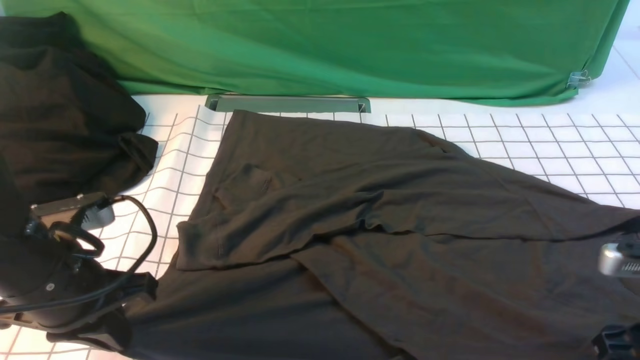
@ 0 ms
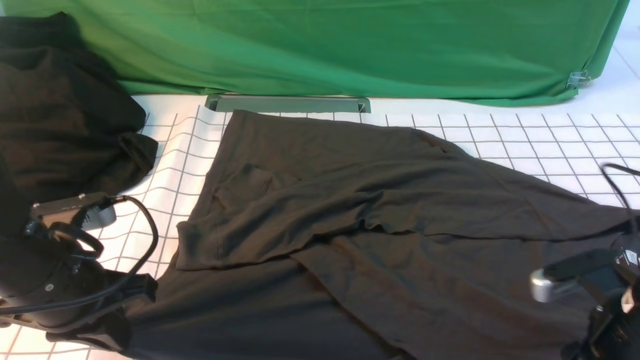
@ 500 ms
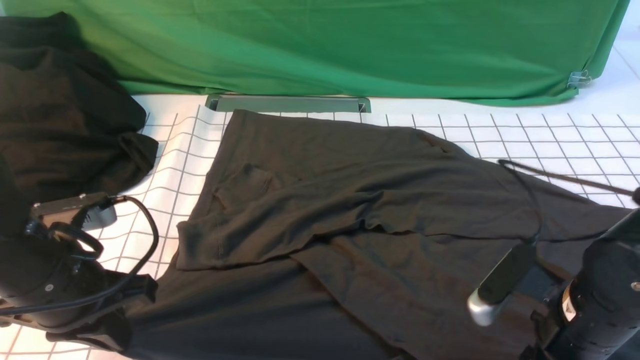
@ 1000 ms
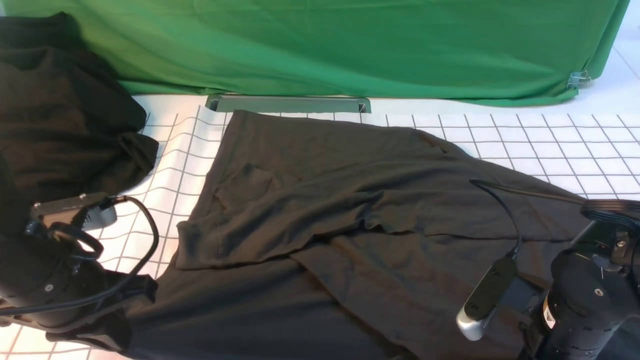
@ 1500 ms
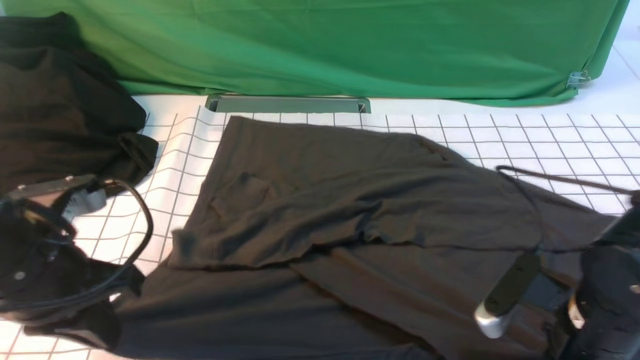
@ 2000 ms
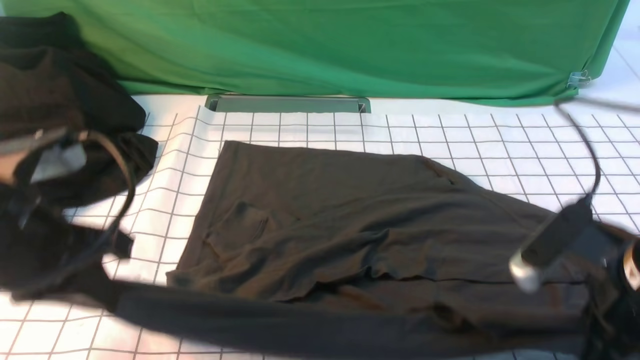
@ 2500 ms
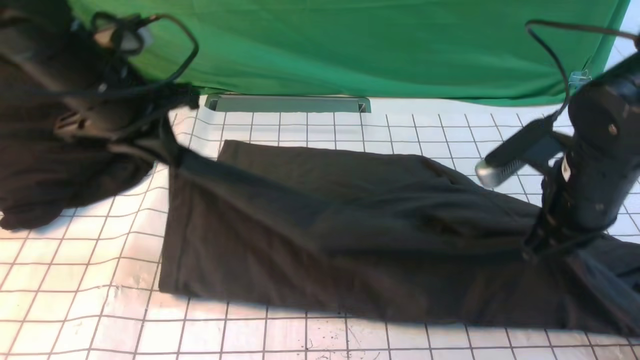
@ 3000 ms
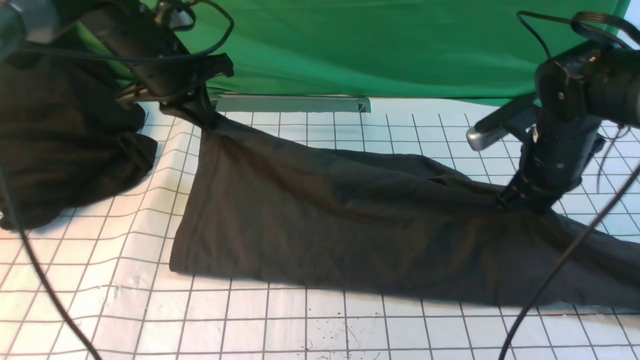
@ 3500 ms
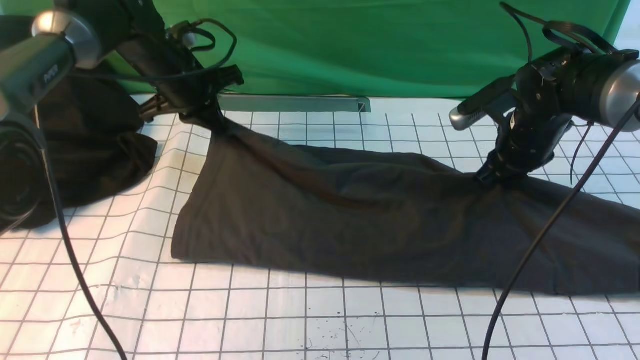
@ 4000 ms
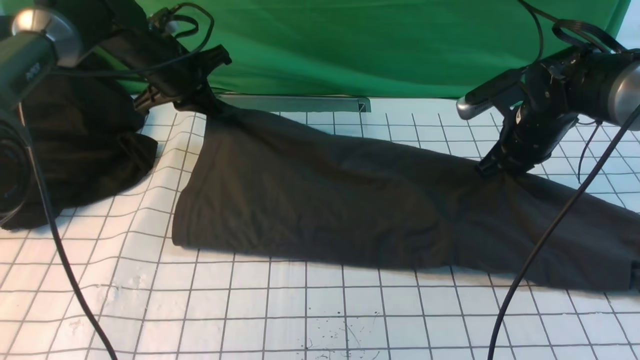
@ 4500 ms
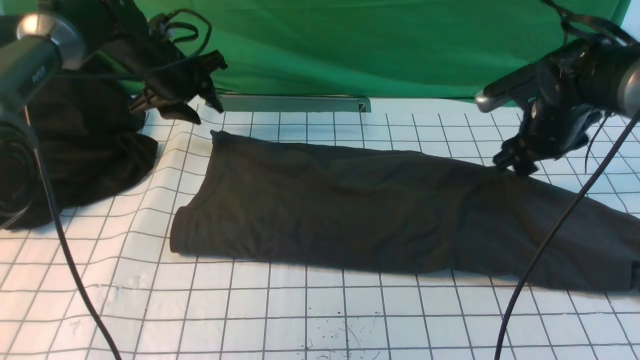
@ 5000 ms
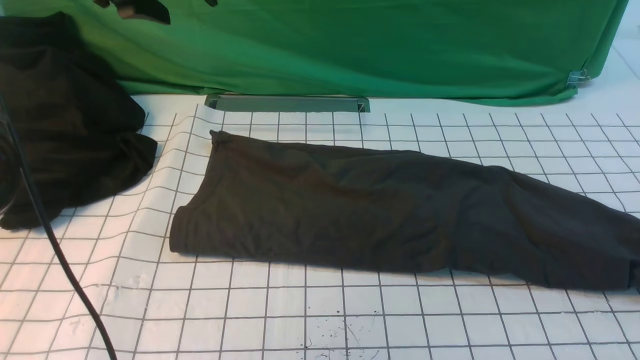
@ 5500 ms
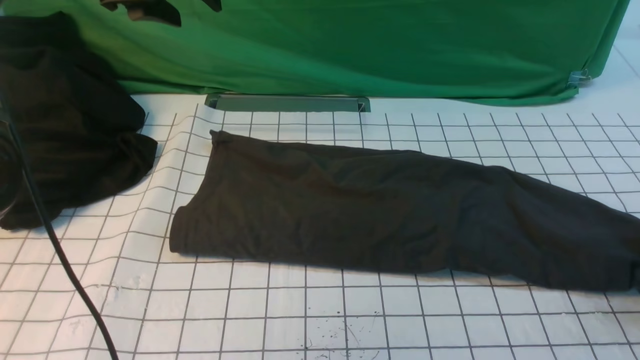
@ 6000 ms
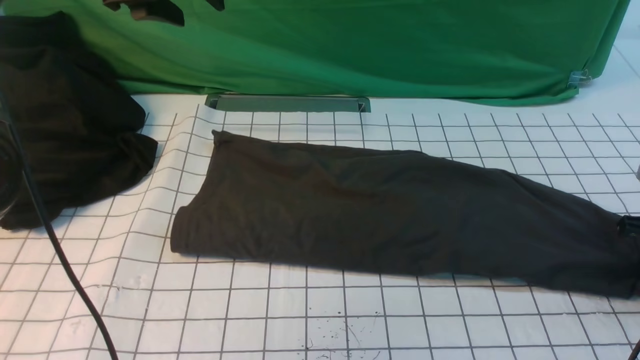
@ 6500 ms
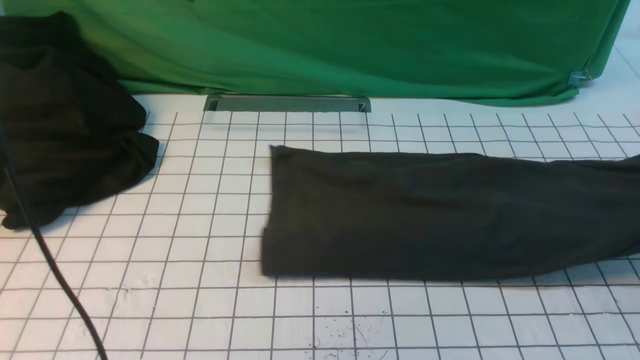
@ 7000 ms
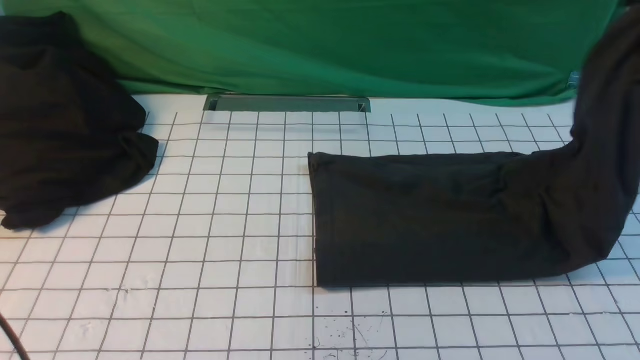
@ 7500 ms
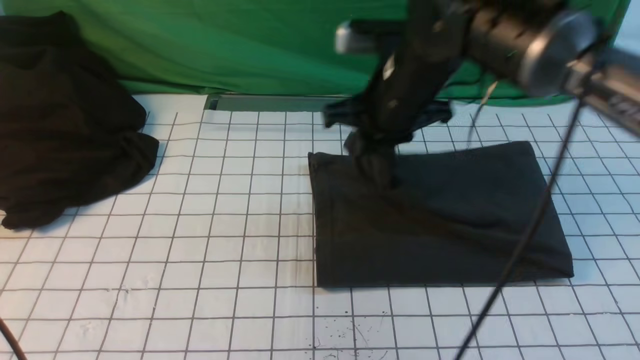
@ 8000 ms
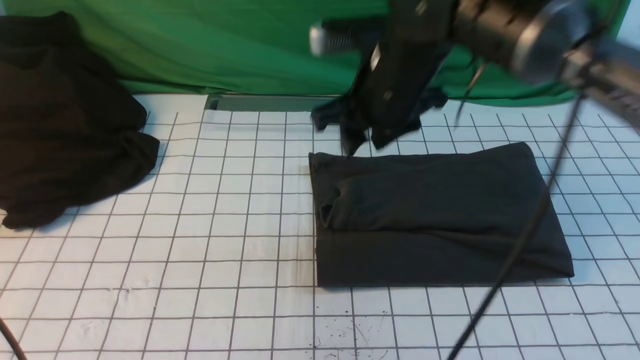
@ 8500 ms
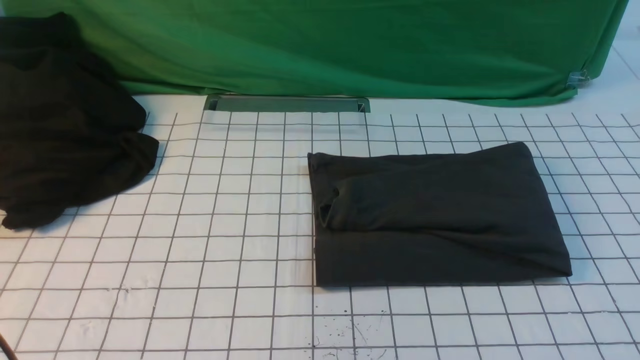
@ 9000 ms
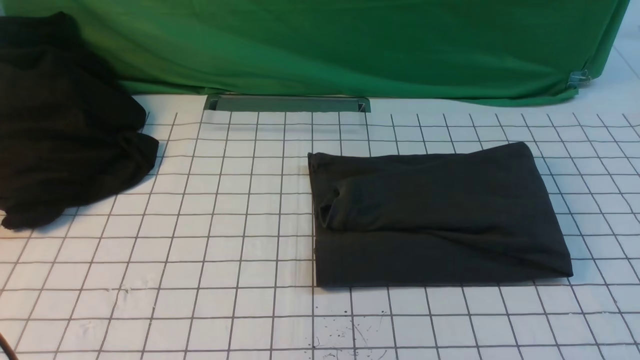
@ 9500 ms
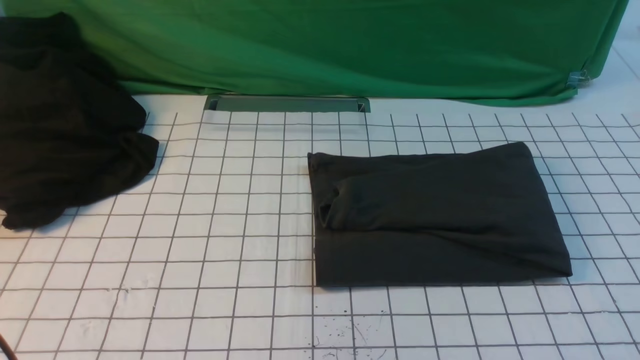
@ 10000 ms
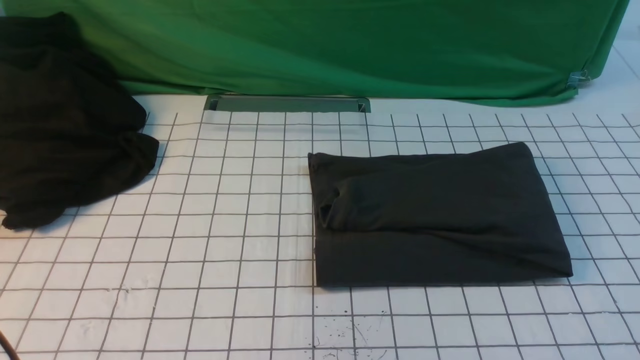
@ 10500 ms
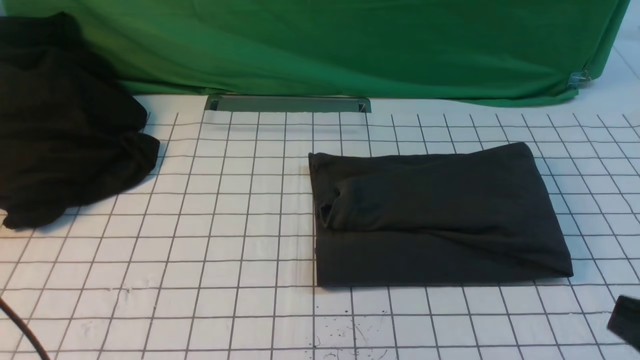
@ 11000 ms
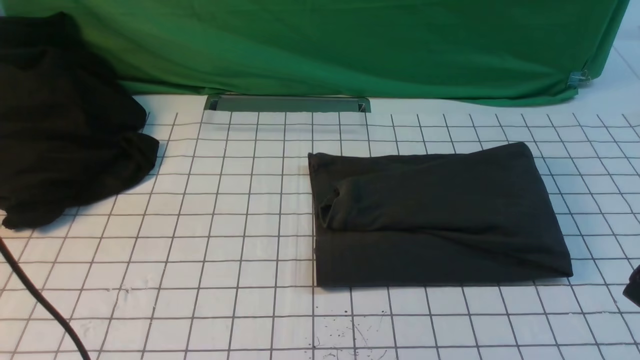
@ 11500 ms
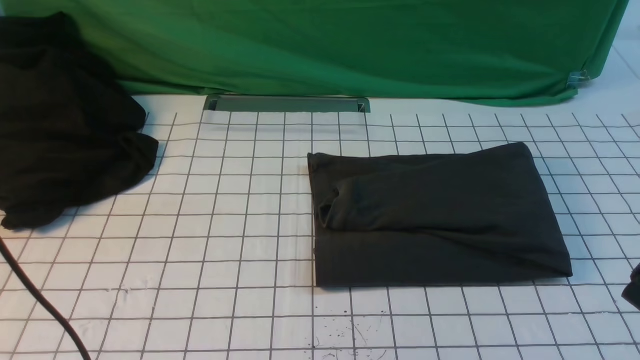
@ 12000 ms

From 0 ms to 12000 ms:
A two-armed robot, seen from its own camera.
Step, from 0 ms to 2000 ms: use both arms simultaneously to clamp the lower edge of the clothing fabric.
Step, from 2500 ms to 5500 ms: use both arms to drag the lower edge of the fabric forward and fold it over the upper edge.
Step, from 6000 ms to 6500 ms: use the right arm to clamp the right edge of the fabric.
Step, from 7000 ms to 8000 ms: use the right arm to drag the right edge of the fabric to the left and folds it over the left edge.
From 0 ms to 2000 ms: The right gripper travels to the left by about 10 cm, and closes its fingers.
From 2000 ms to 4000 ms: The grippers both shift forward by about 25 cm.
From 4000 ms to 6000 ms: The right gripper shifts roughly 20 cm to the right and backward, and opens its fingers. Meanwhile the left gripper is displaced upward by roughly 15 cm, and opens its fingers.
From 6000 ms to 8000 ms: The right gripper heads to the left, covering approximately 35 cm, and closes up. Meanwhile the left gripper is displaced to the left by approximately 5 cm, and closes its fingers.
From 8000 ms to 10000 ms: The right gripper moves backward and to the right, some 40 cm, and closes its fingers.
From 10000 ms to 12000 ms: The left gripper shifts some 10 cm to the right.

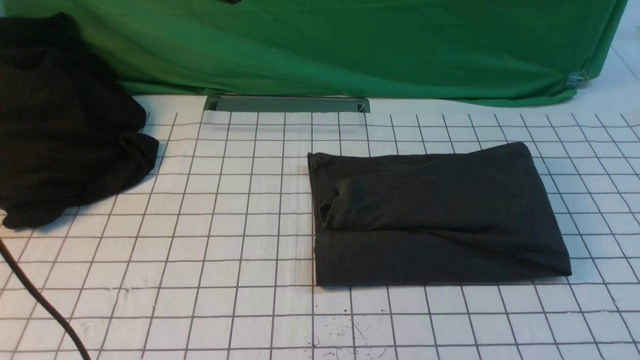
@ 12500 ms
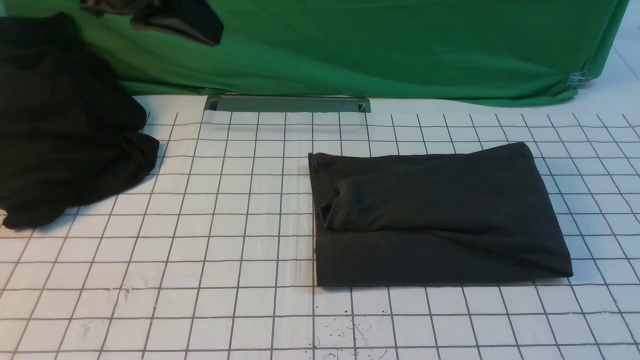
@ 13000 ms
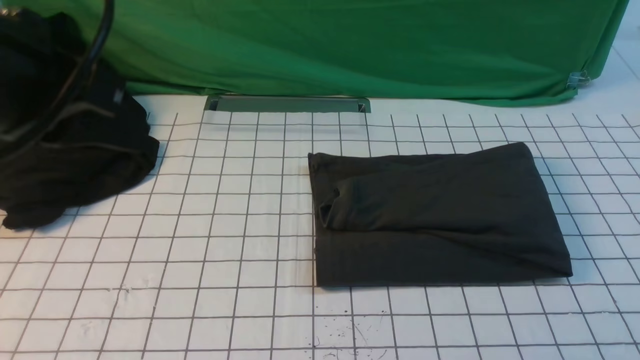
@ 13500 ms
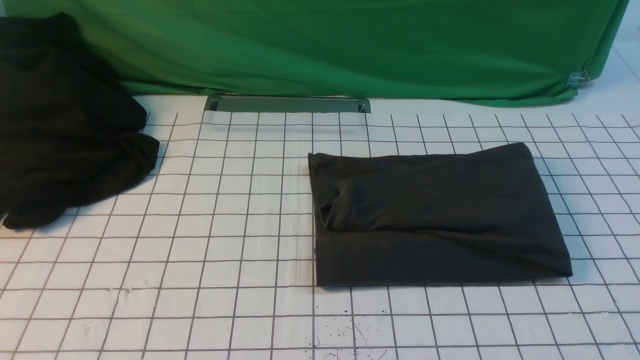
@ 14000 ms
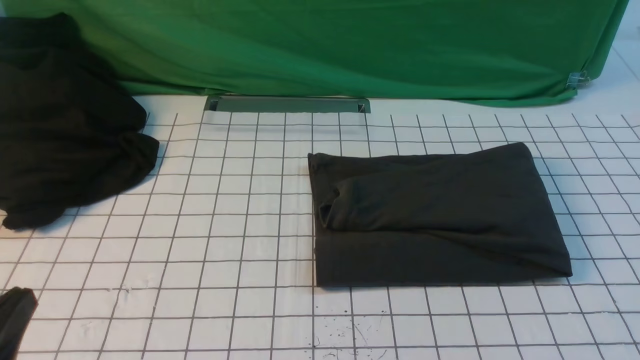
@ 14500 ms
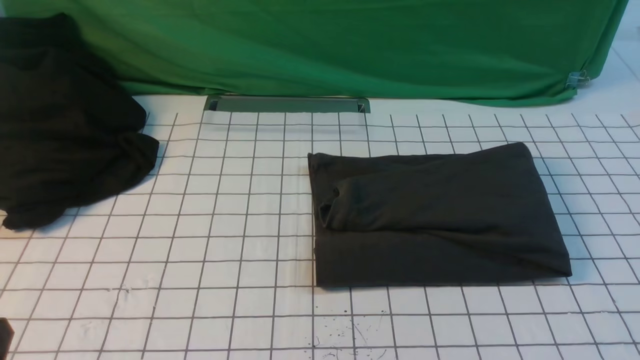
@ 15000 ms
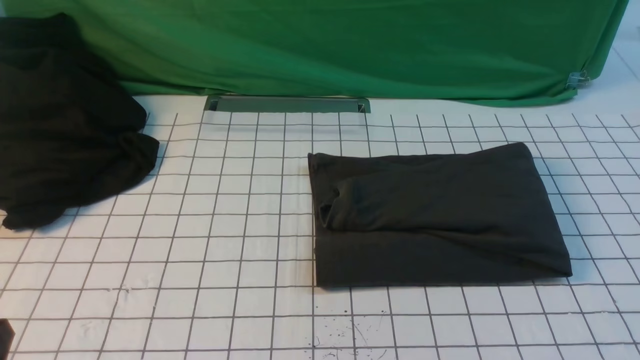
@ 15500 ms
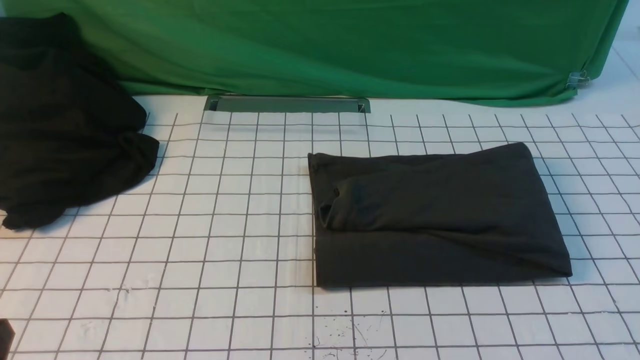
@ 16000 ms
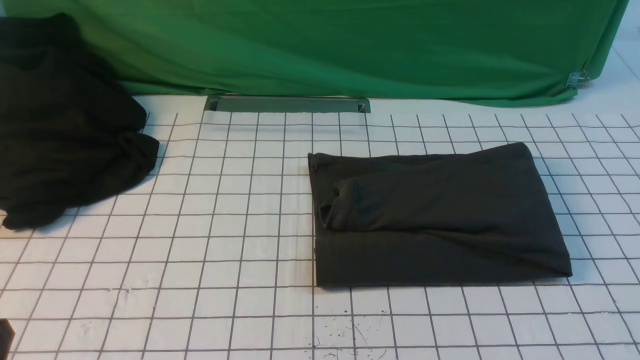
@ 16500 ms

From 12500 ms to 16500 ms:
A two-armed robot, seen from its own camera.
From 12500 ms to 14500 ms: The left gripper is displaced backward and downward by about 40 cm.
